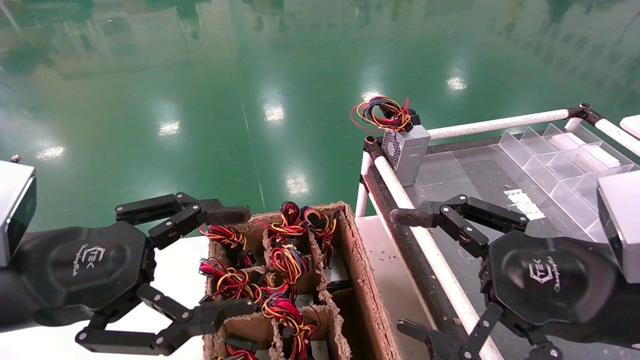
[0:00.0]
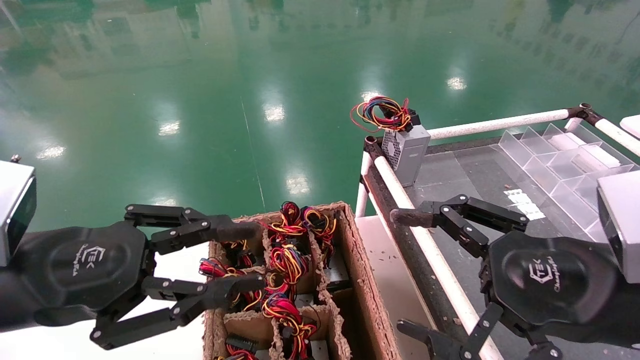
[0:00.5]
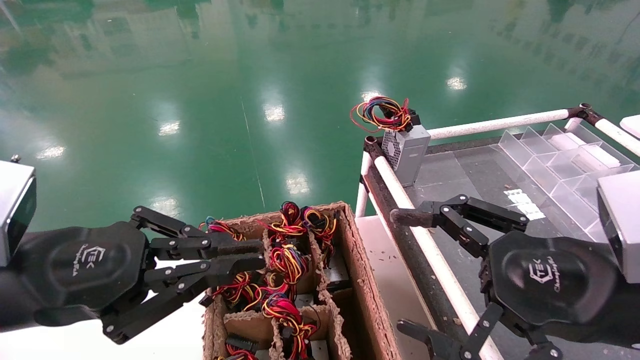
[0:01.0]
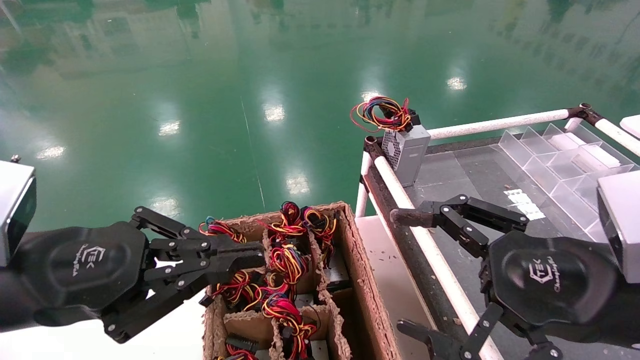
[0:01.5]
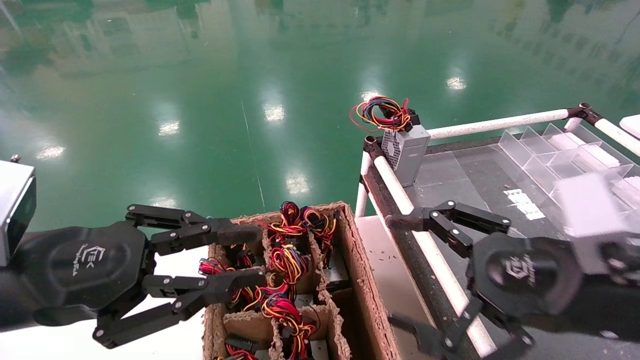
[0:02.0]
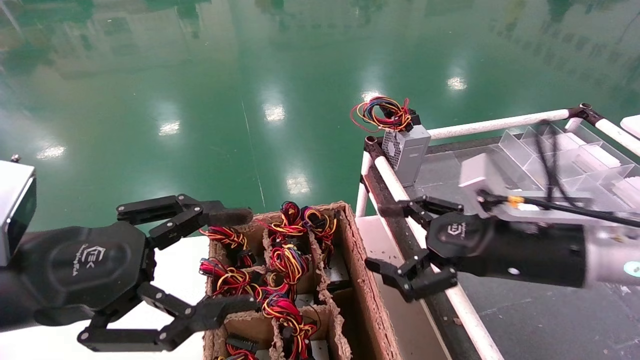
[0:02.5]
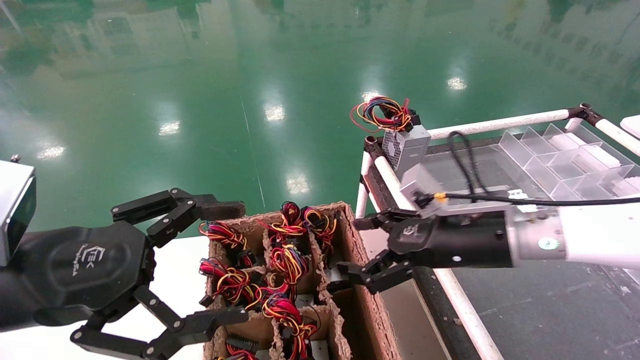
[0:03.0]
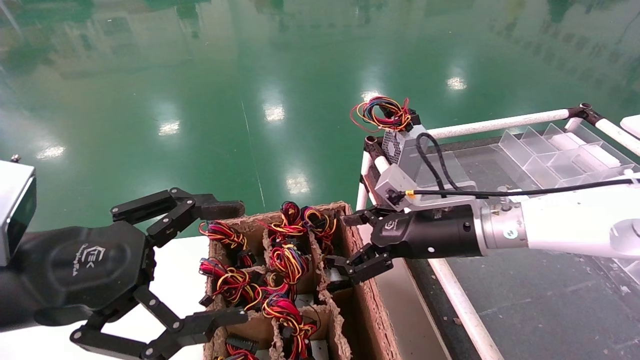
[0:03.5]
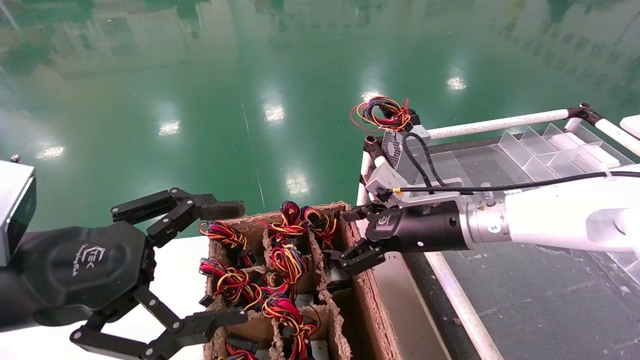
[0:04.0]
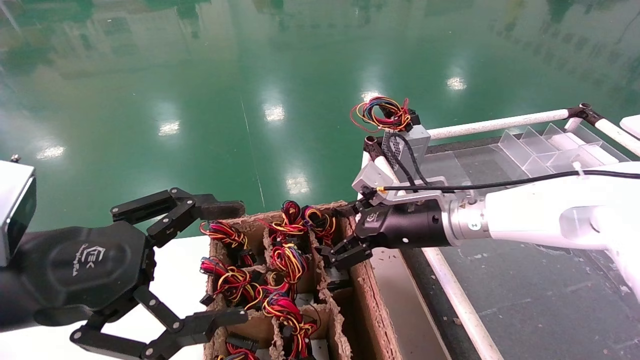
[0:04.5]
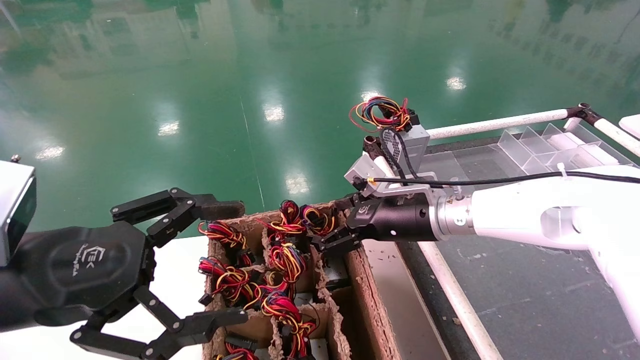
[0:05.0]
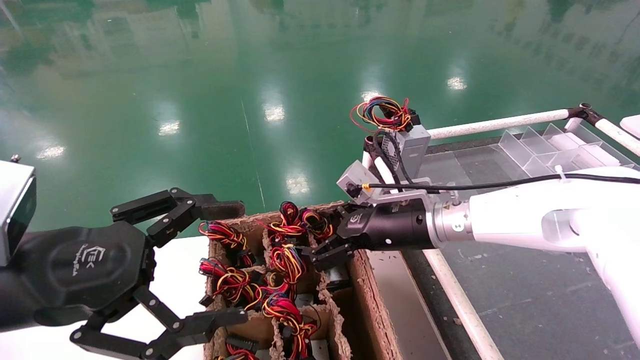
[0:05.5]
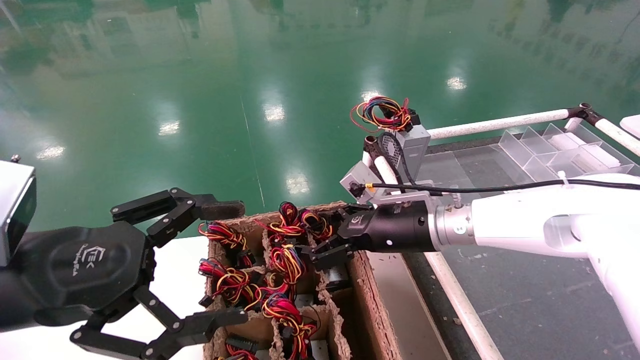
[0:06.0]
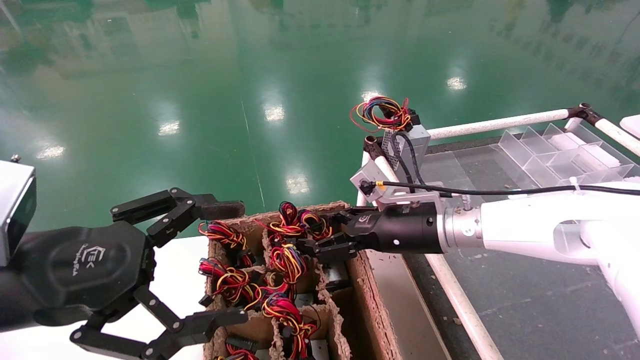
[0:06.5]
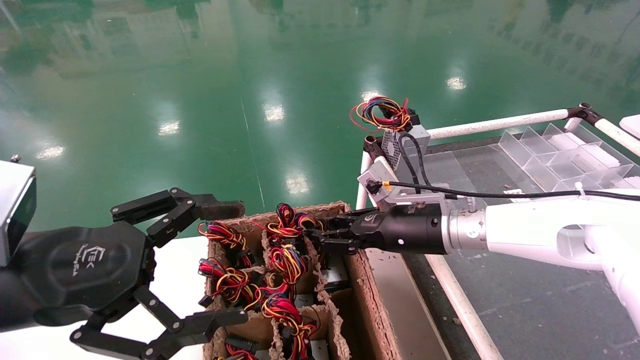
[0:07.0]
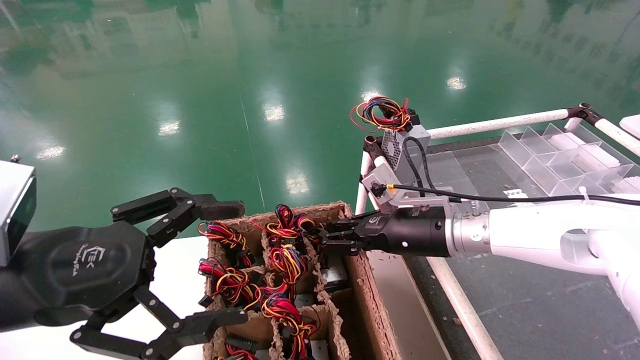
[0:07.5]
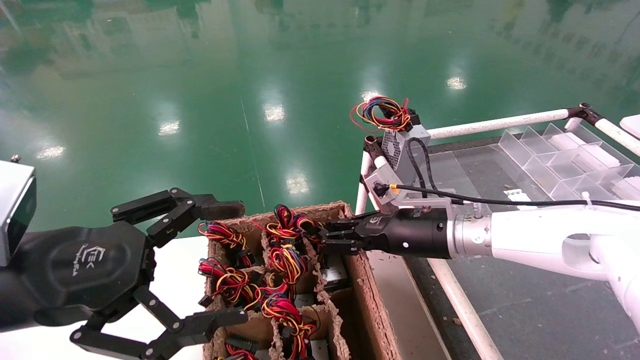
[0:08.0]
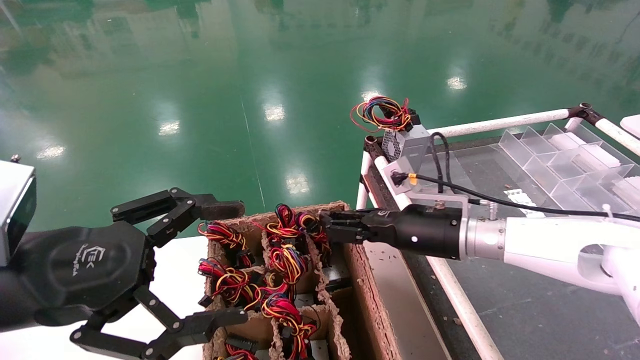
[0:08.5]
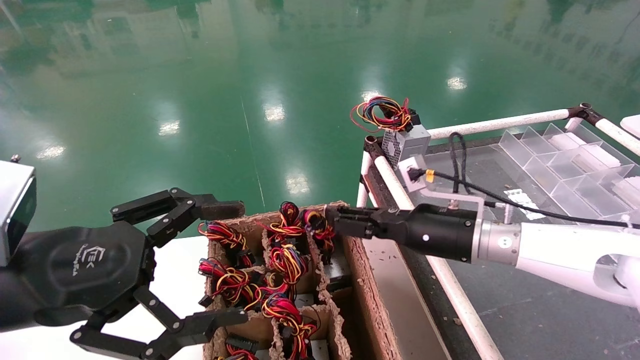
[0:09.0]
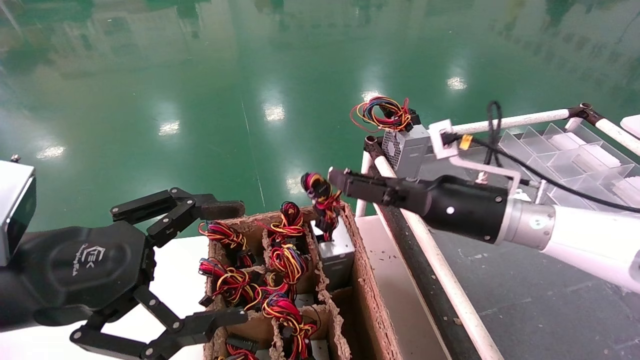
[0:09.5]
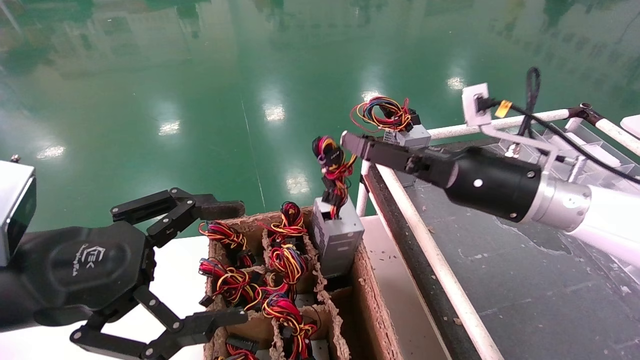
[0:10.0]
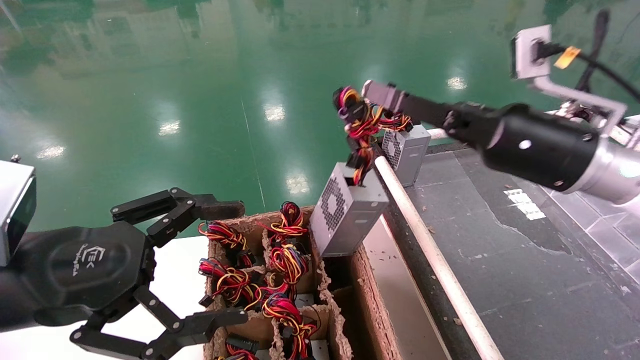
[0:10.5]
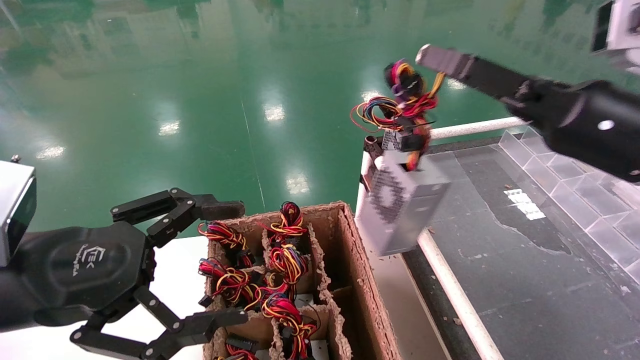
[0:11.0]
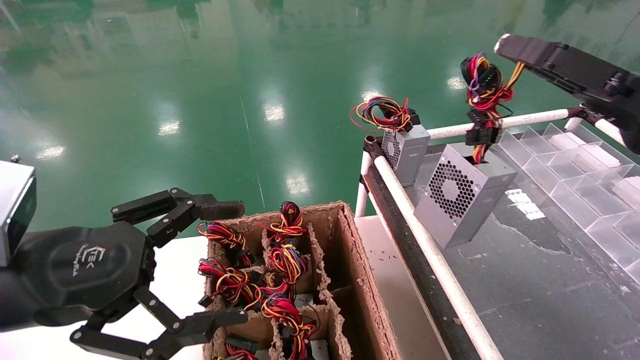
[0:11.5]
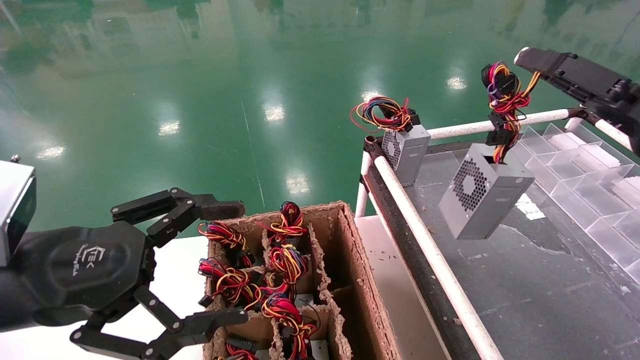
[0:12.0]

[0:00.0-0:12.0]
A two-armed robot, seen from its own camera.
Step, 0:02.5 to 0:07.0: Grab and lift the power supply from the large box.
0:00.0 to 0:02.0: The left gripper closes its fingers.
0:02.0 to 0:04.0: The right gripper is displaced forward and to the left by approximately 20 cm. Meanwhile the left gripper opens its fingers.
0:04.0 to 0:06.0: The grippers make only small movements.
0:06.0 to 0:08.0: The right gripper closes up.
0:08.0 to 0:10.0: The right gripper travels upward and to the right by roughly 10 cm.
0:10.0 to 0:12.0: The right gripper travels to the right by approximately 15 cm.

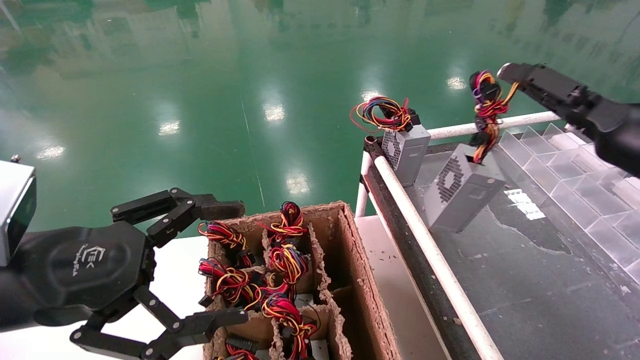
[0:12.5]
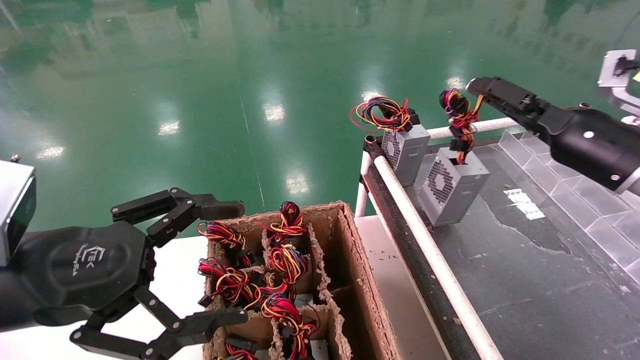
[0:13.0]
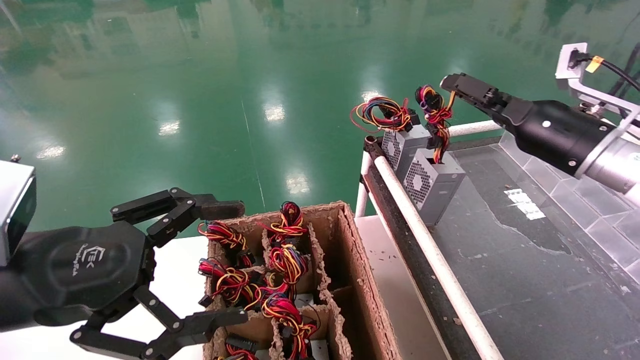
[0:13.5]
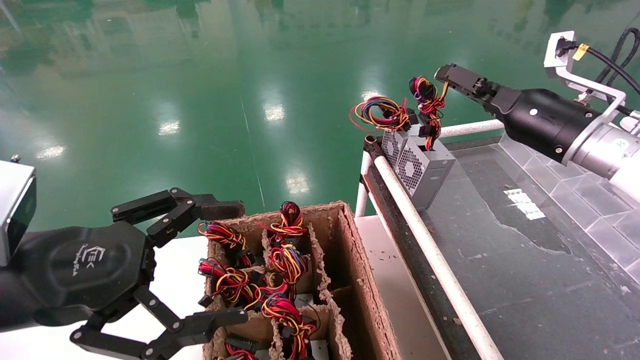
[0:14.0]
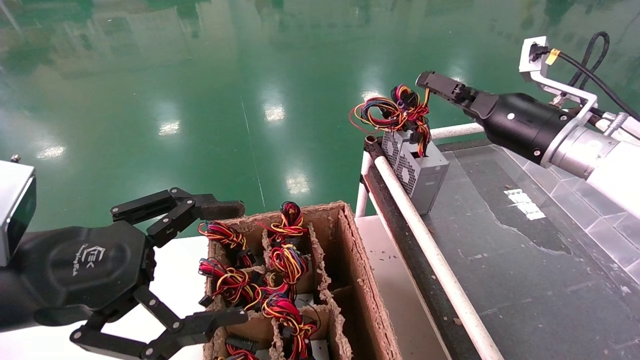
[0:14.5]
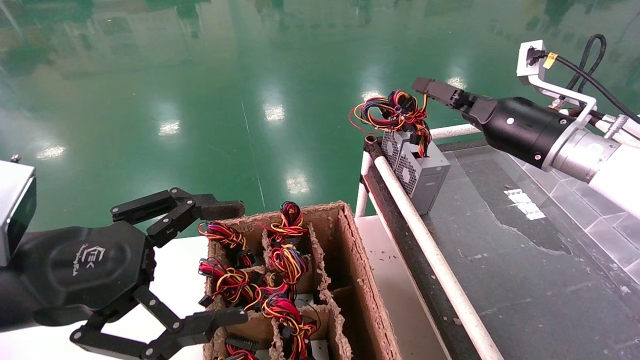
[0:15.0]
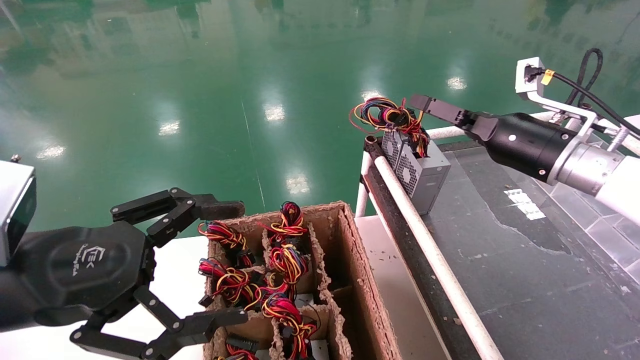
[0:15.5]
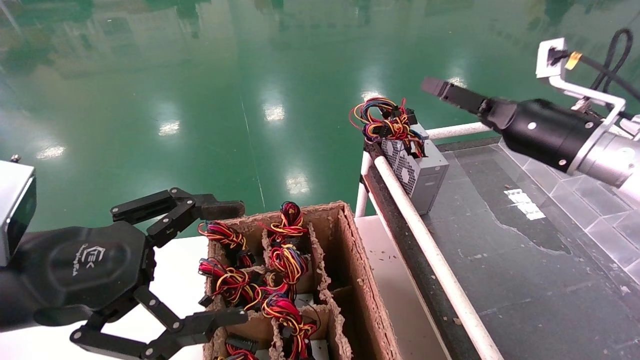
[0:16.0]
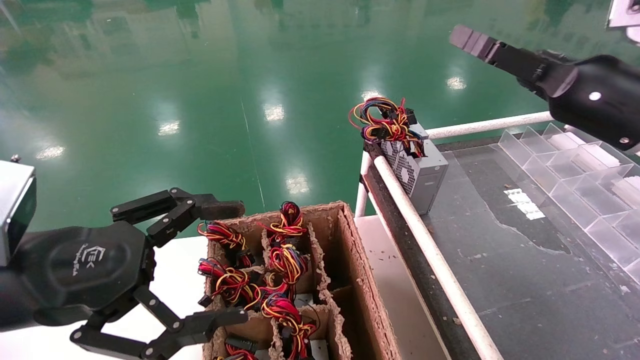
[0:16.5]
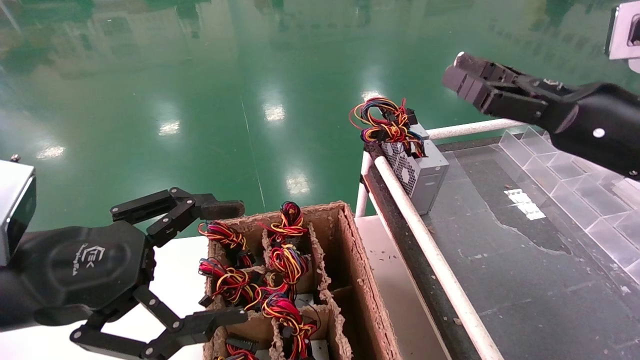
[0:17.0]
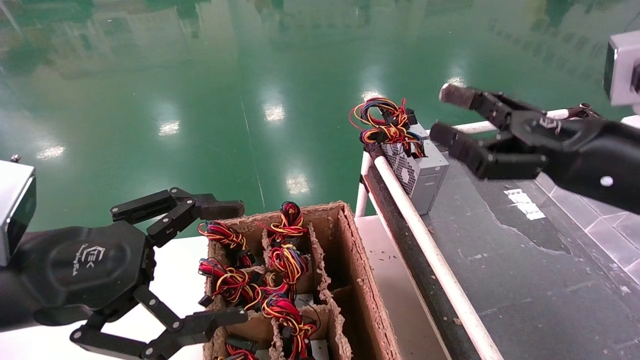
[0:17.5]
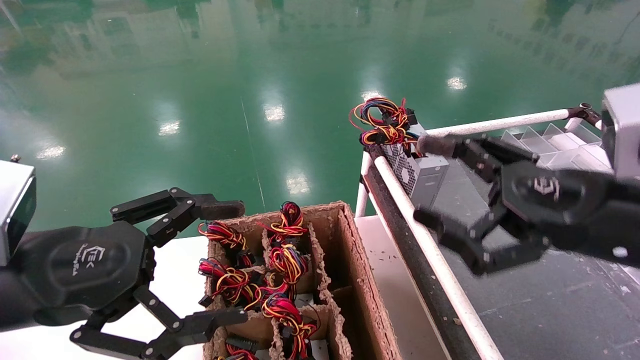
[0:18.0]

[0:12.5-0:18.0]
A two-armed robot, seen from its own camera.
Step, 0:12.5 to 0:15.0: Place the power supply on the operating table.
0:12.5 to 0:14.5: The right gripper moves to the left and forward, approximately 10 cm.
0:14.5 to 0:16.0: The right gripper opens up.
0:16.0 to 0:18.0: The right gripper heads backward, covering some 15 cm.
